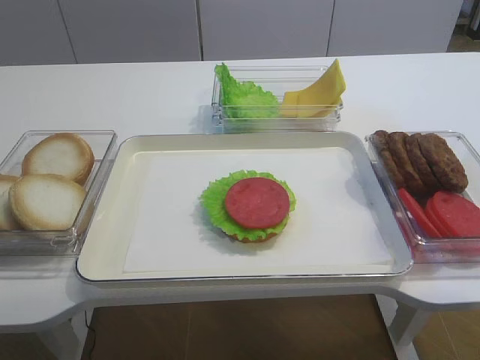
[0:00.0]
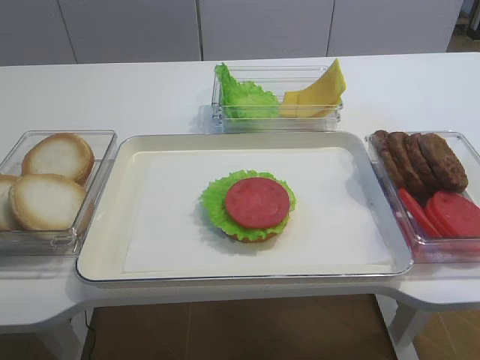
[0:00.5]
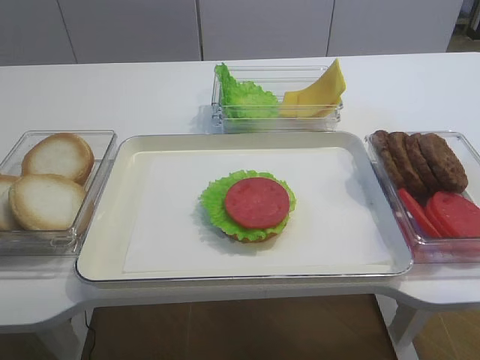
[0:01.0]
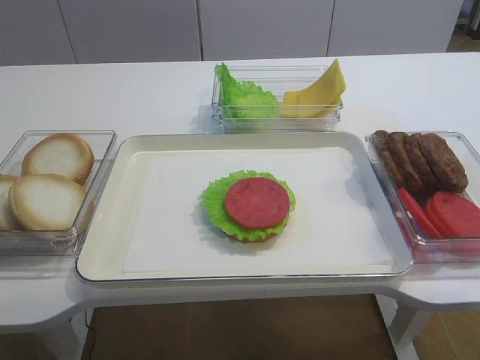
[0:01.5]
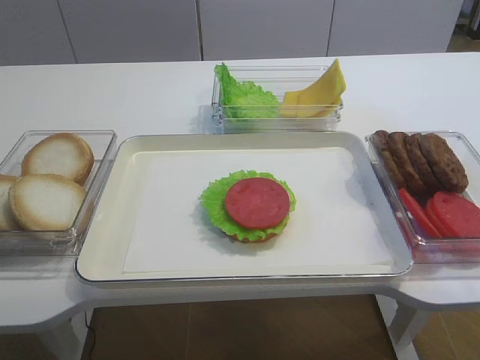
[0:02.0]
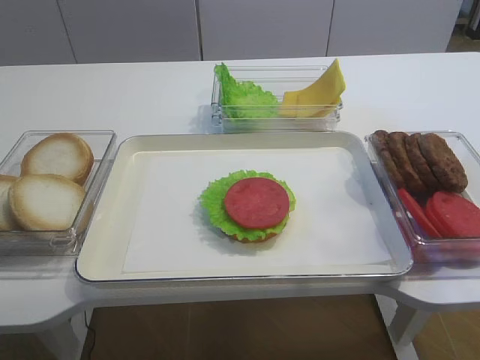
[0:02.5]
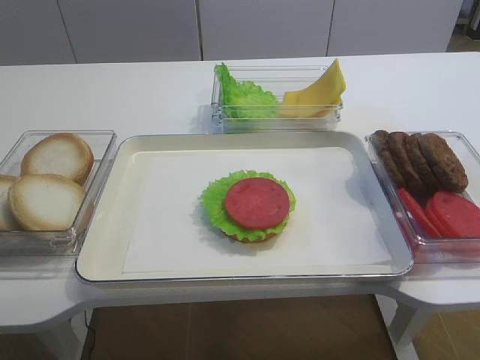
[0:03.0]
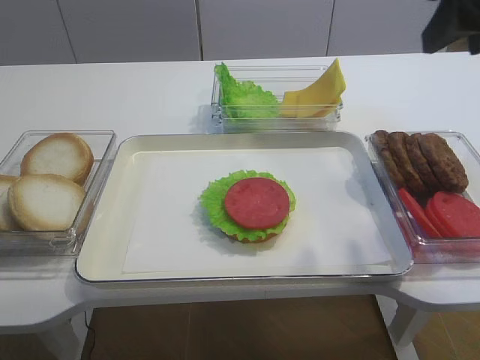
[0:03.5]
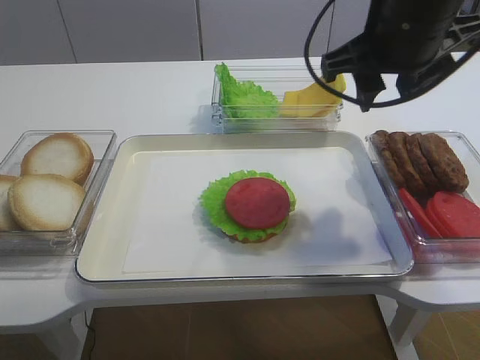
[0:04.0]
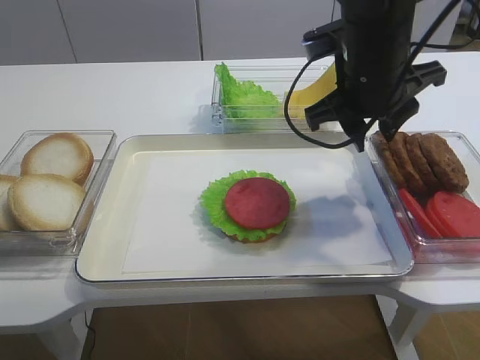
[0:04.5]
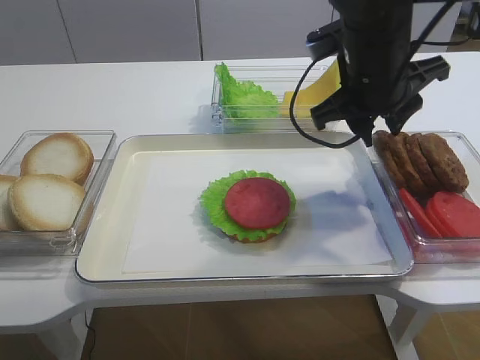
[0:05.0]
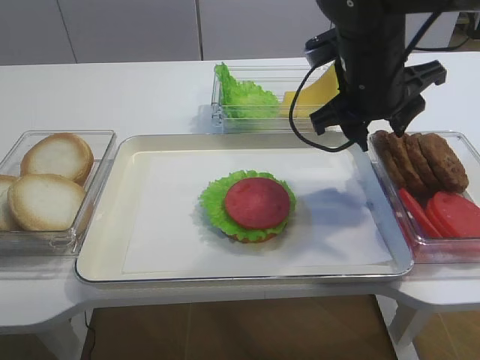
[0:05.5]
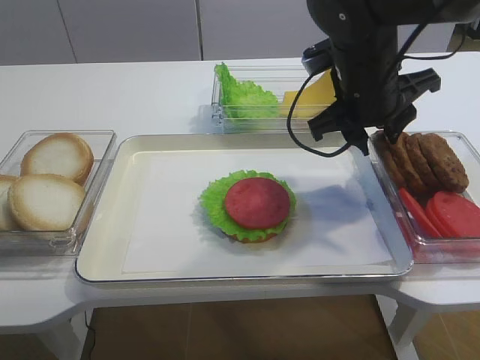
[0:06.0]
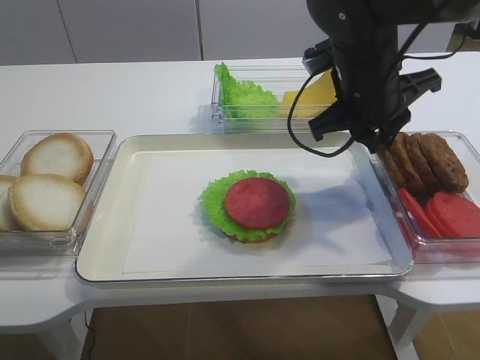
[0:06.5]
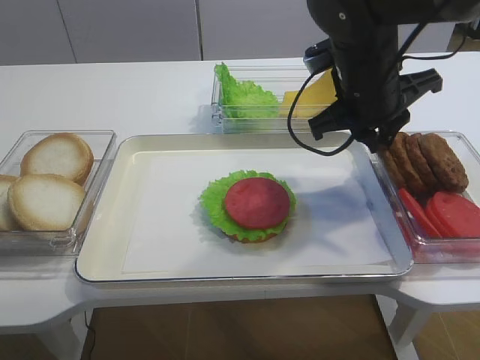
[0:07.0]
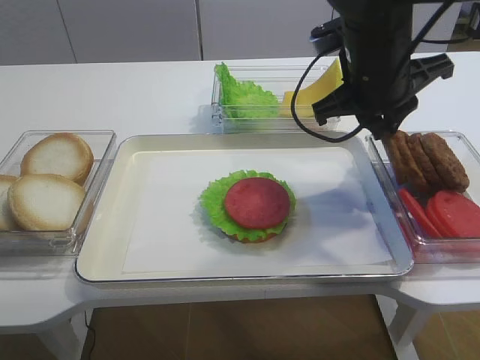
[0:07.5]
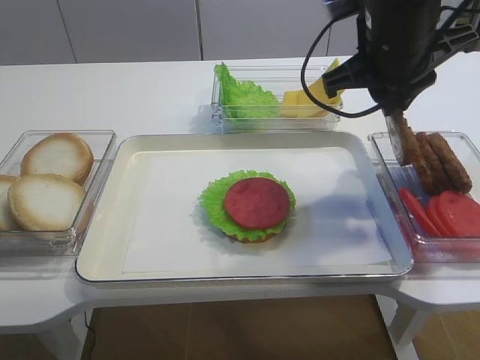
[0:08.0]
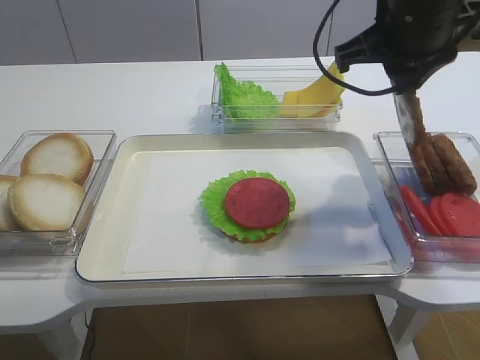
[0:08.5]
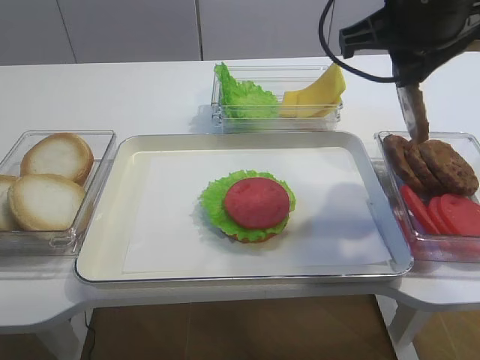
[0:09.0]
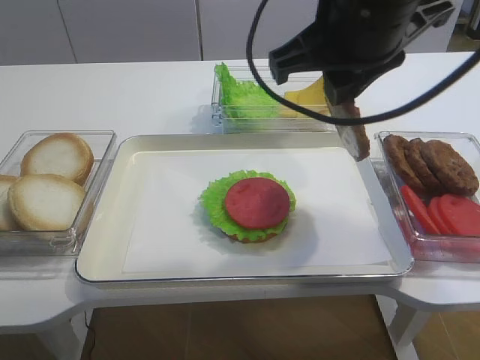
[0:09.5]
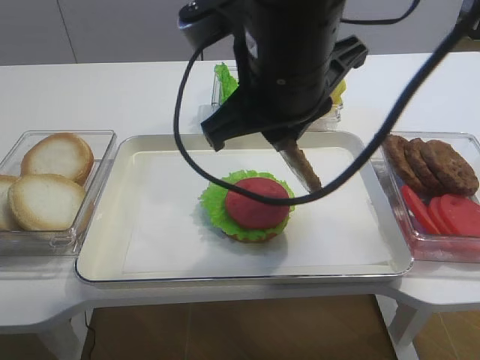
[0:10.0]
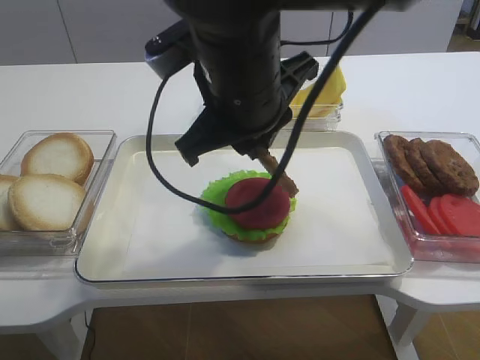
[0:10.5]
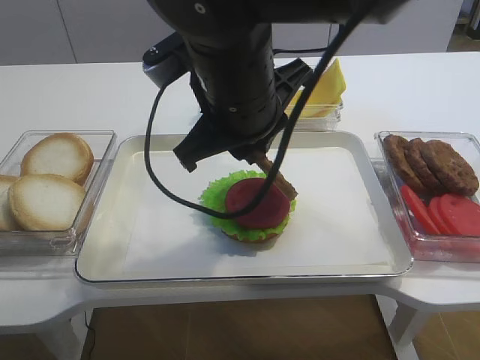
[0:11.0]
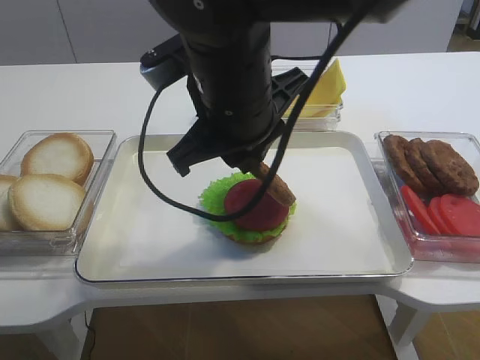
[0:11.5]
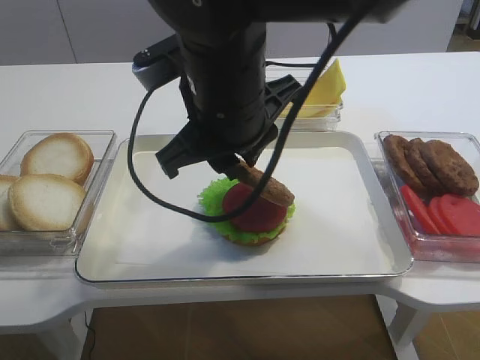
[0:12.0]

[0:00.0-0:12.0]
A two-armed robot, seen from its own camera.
Step, 0:00.0 to 0:08.5: Pick up the cutlet with the right gripper.
0:02.0 to 0:04.0: The right gripper heads forward and to the left, covering some 35 cm.
0:04.0 to 0:06.0: The right gripper shifts about 10 cm downward.
0:06.0 to 0:08.0: The right gripper goes approximately 5 cm upward, and closes.
0:08.0 to 0:10.0: The right gripper is displaced to the left and backward by roughly 15 cm.
0:10.0 to 0:12.0: The right gripper moves some 5 cm.

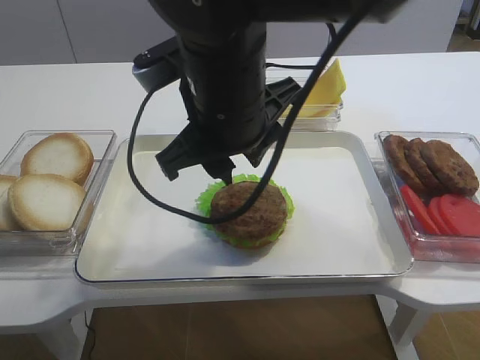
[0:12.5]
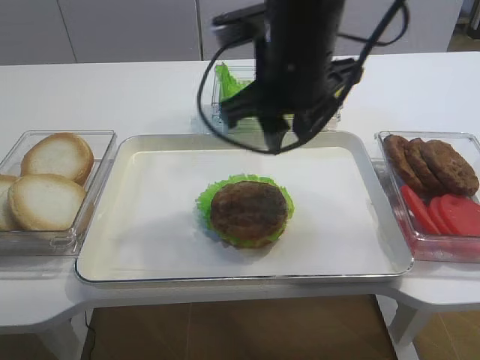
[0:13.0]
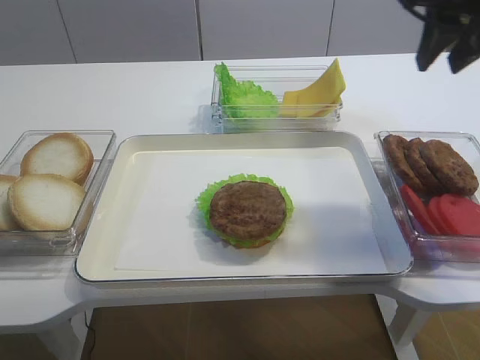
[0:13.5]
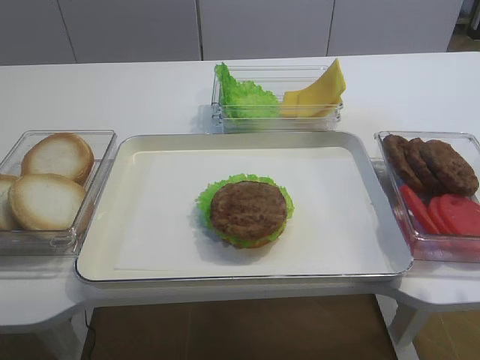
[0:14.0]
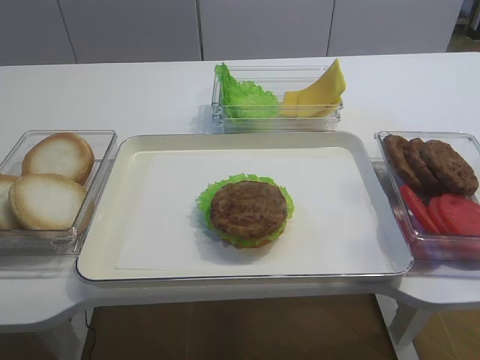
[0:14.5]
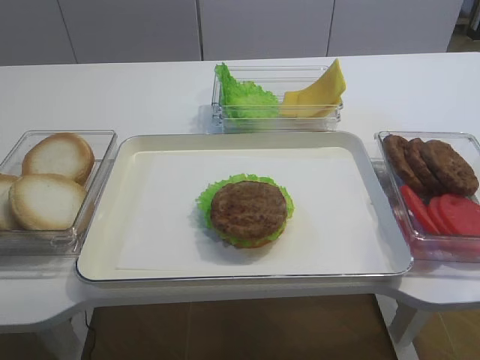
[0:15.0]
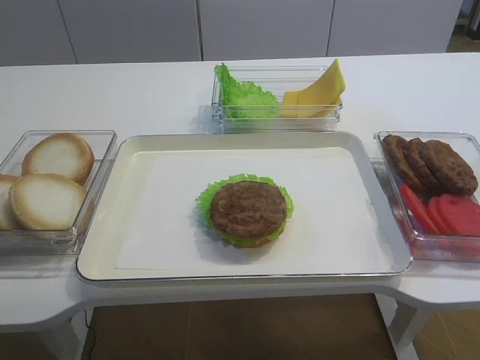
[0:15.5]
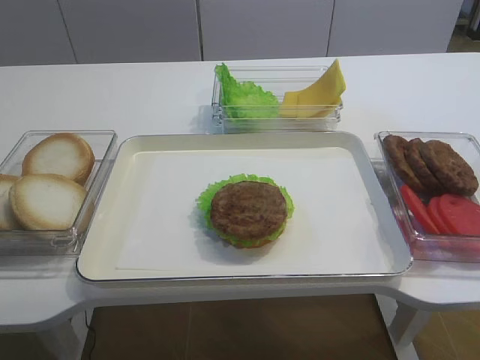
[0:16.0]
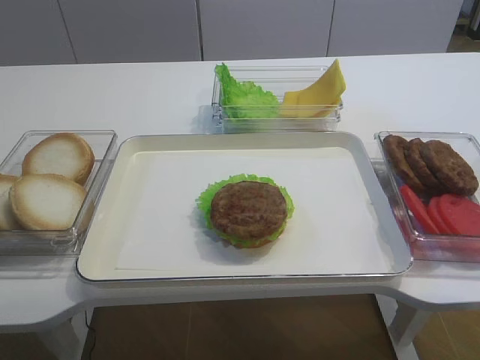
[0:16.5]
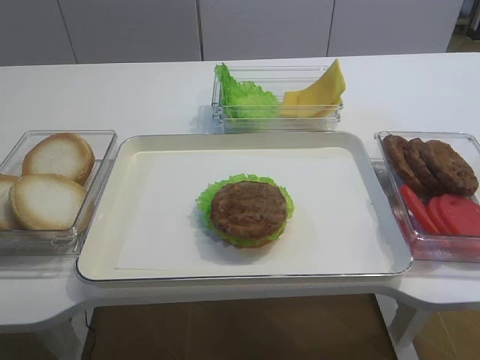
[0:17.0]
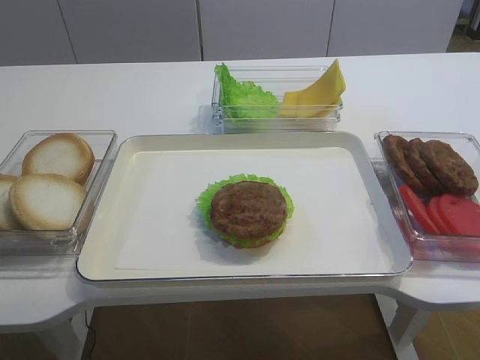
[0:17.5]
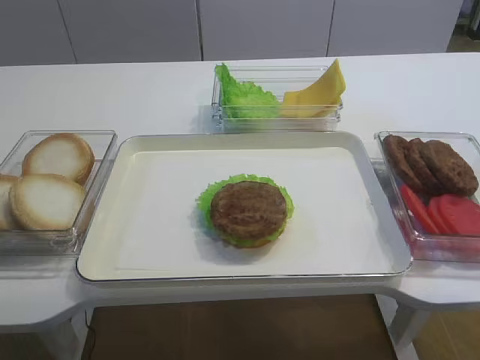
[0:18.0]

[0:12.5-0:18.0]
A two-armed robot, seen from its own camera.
0:12.5 to 0:14.5: The right gripper travels to the right and backward by about 35 cm.
0:14.5 to 0:16.0: The right gripper shifts roughly 10 cm backward and downward.

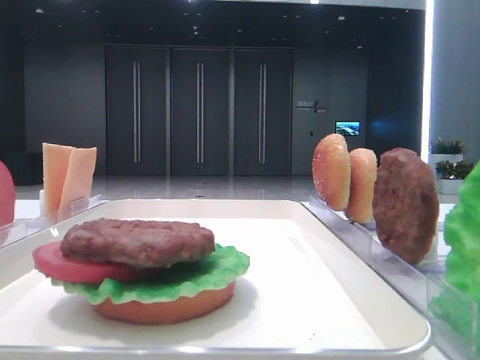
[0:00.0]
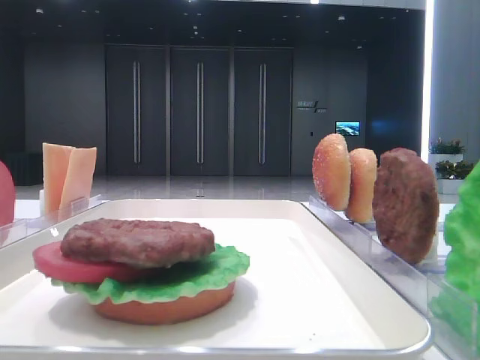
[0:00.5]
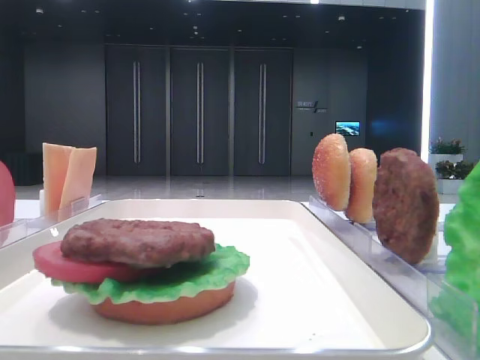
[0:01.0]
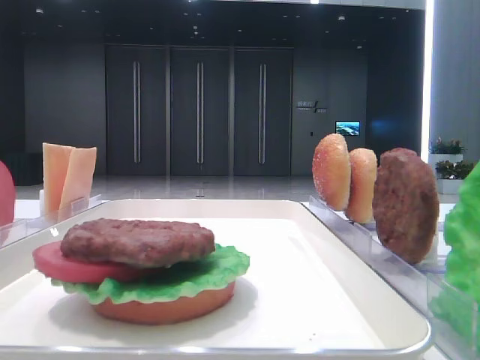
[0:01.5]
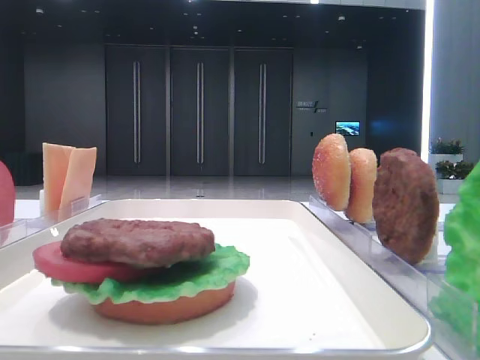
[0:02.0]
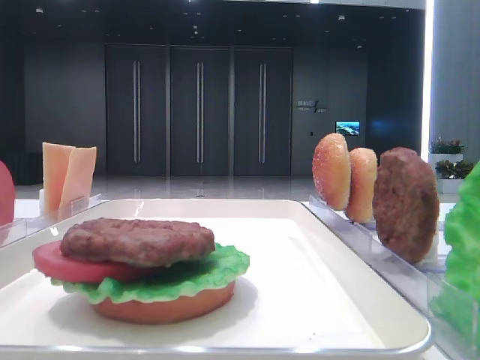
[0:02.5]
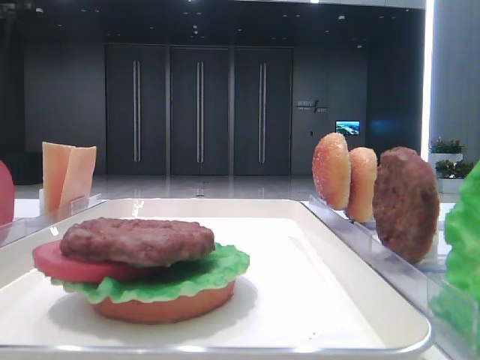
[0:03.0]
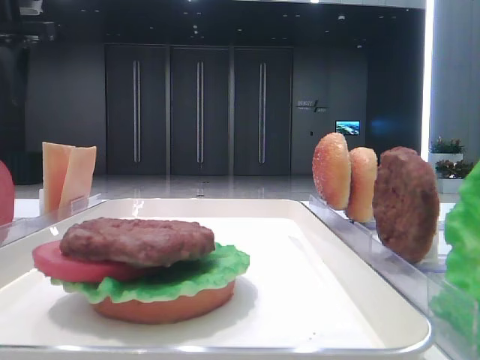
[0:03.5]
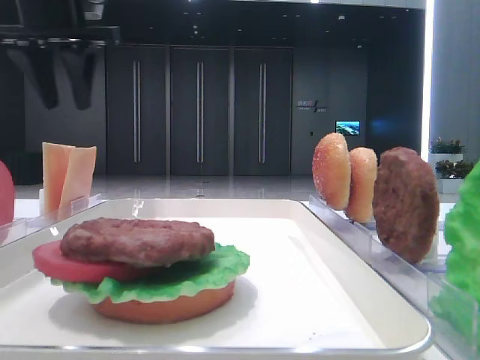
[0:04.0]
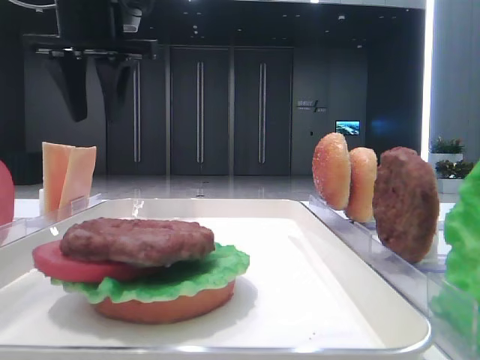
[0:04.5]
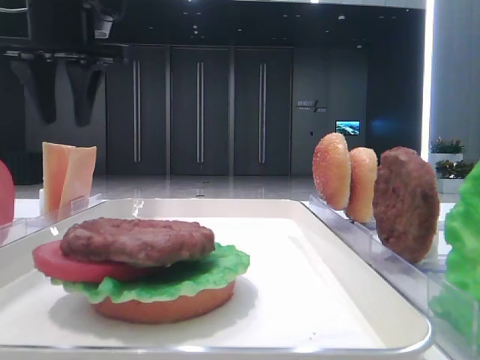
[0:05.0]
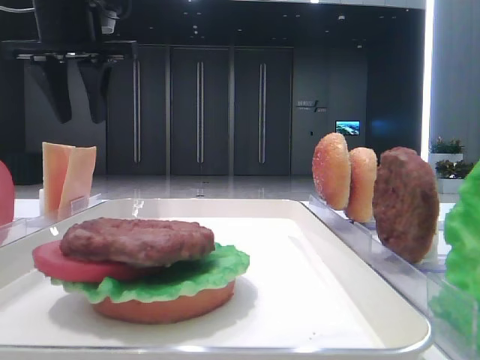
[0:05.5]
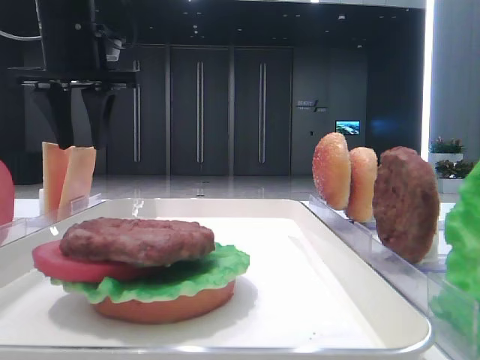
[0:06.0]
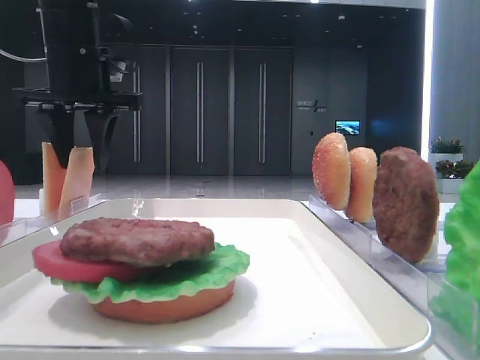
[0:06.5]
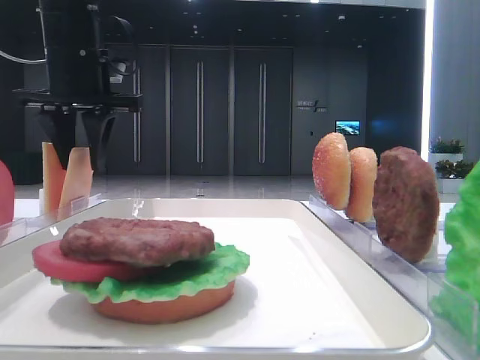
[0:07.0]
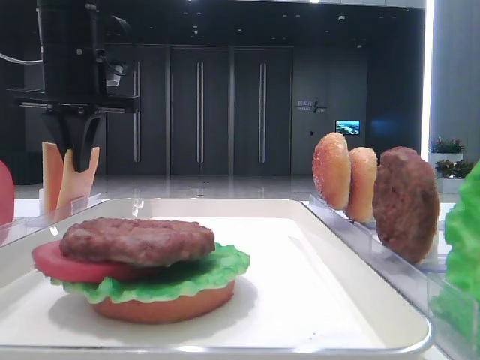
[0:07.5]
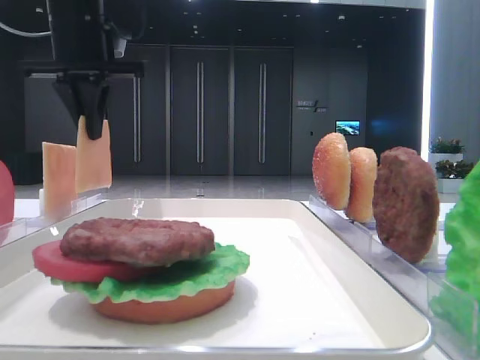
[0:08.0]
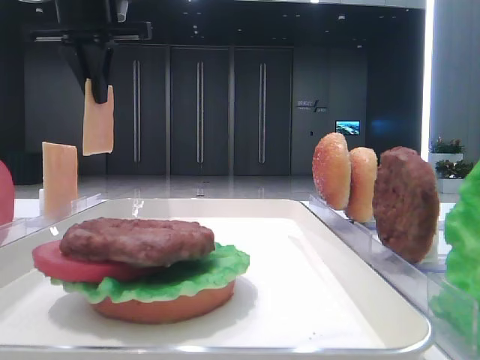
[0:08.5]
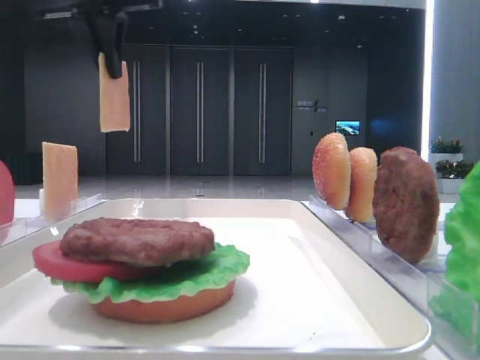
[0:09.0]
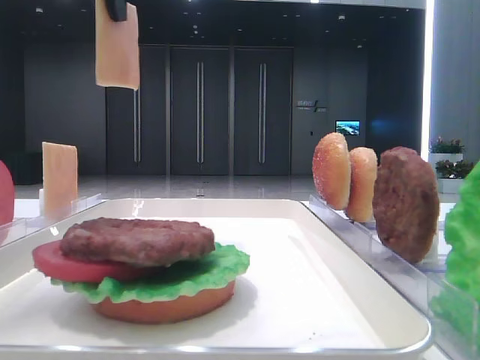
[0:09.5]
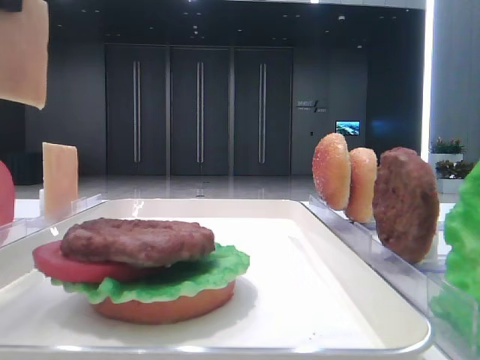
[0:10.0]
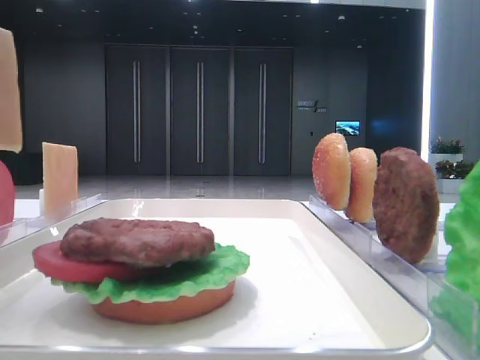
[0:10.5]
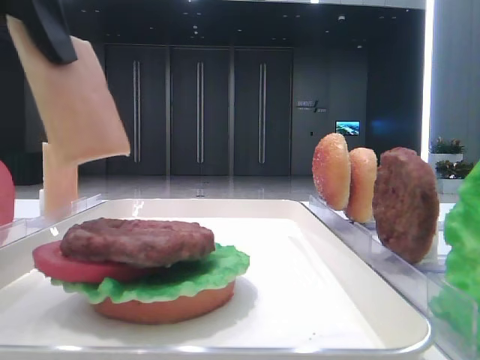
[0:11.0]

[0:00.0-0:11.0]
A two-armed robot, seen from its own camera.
Step, 0:00.0 to 0:07.5: Pick up the cheese slice with the left hand.
0:02.0 to 0:03.5: The left gripper travels forward by some 35 cm.
0:03.5 to 0:05.5: The left gripper moves to the right, some 10 cm.
0:05.5 to 0:07.5: The left gripper heads downward, covering about 5 cm, and closes.
0:07.5 to 0:09.0: The left gripper moves upward, some 10 cm.
0:09.0 to 0:11.0: The left gripper moves backward, approximately 20 cm.
